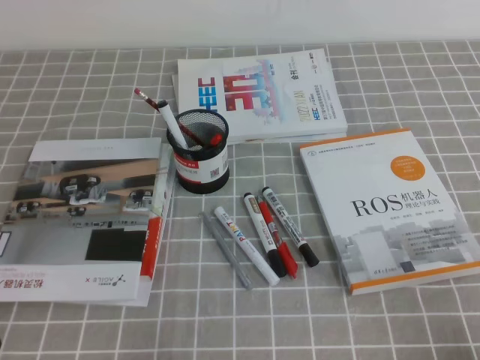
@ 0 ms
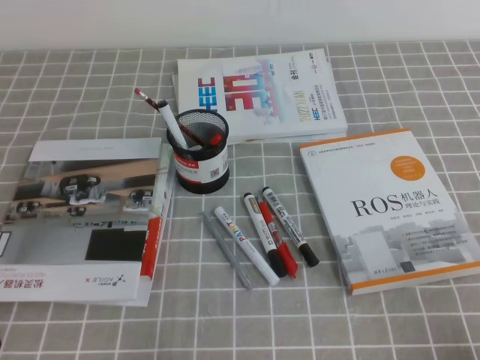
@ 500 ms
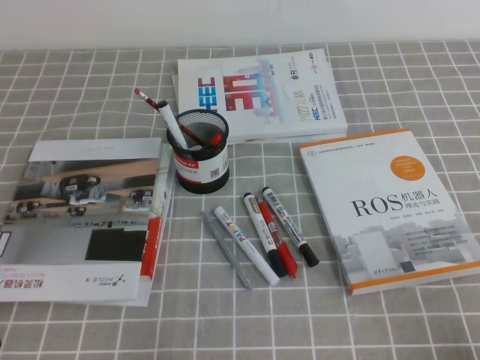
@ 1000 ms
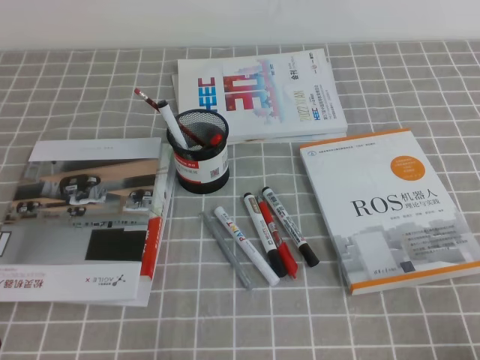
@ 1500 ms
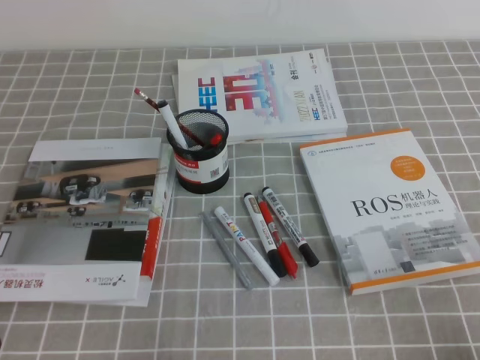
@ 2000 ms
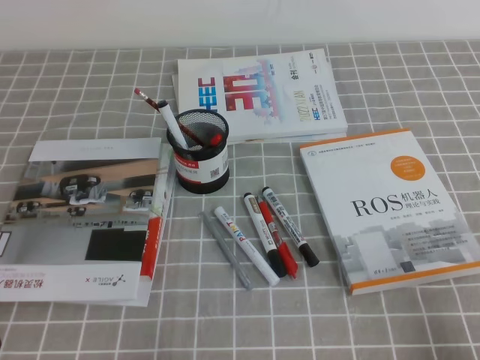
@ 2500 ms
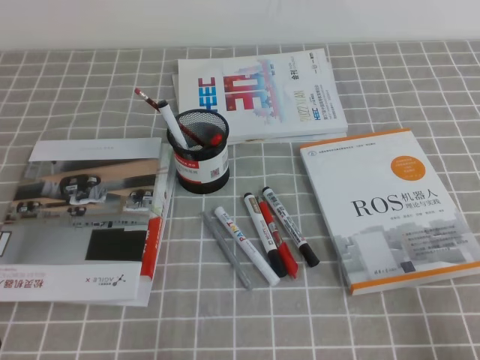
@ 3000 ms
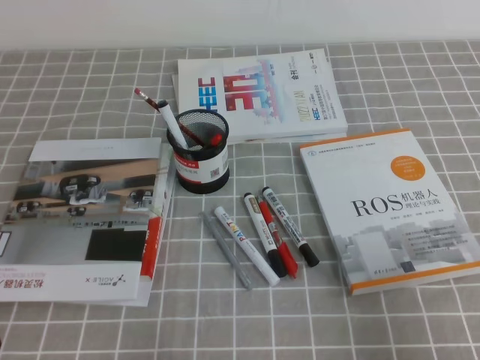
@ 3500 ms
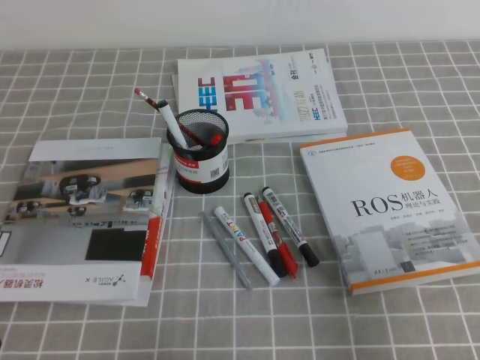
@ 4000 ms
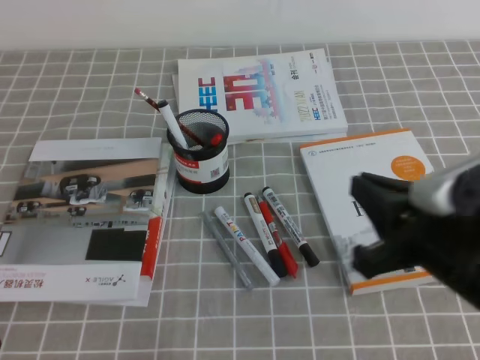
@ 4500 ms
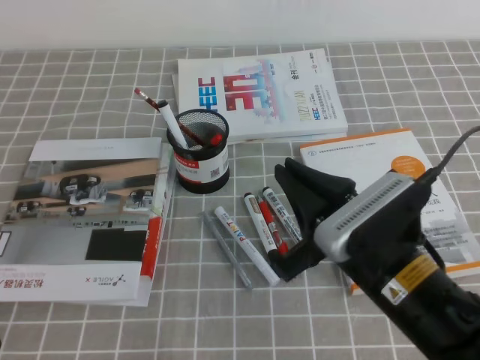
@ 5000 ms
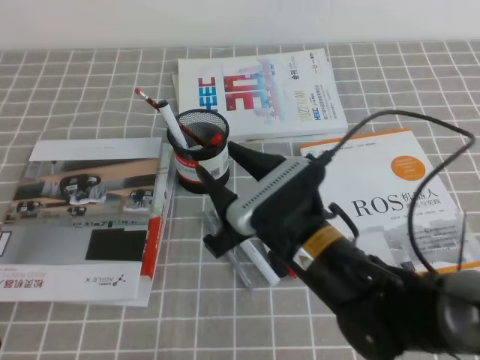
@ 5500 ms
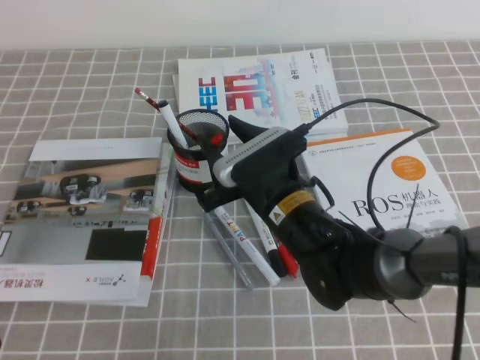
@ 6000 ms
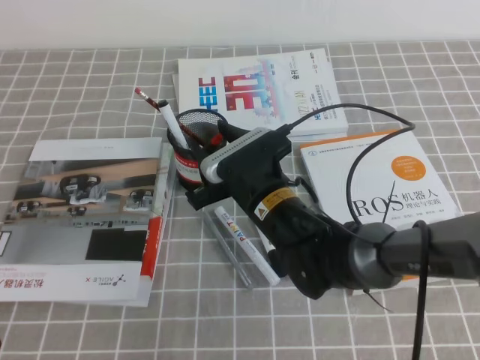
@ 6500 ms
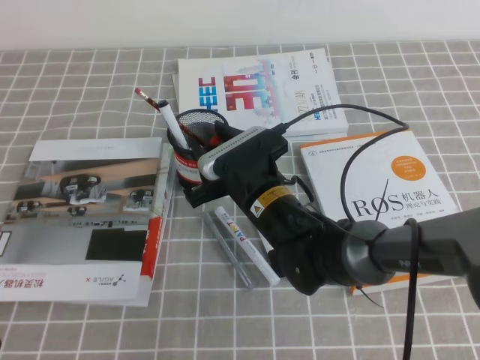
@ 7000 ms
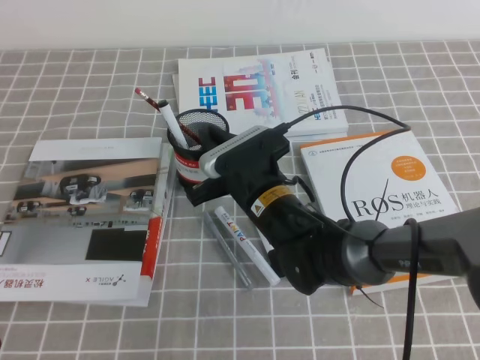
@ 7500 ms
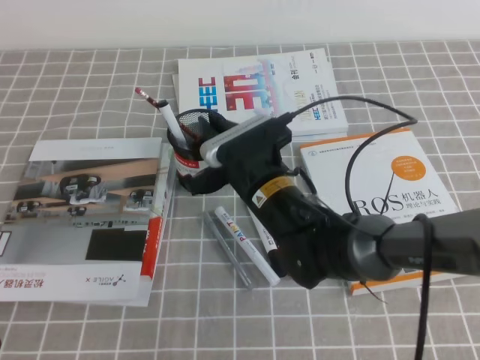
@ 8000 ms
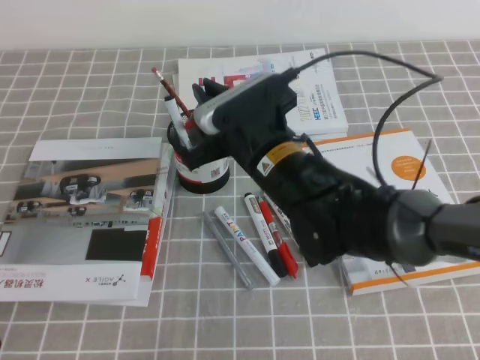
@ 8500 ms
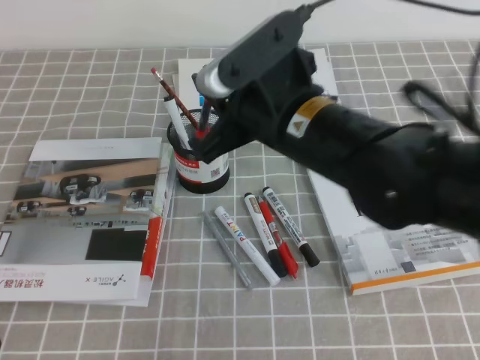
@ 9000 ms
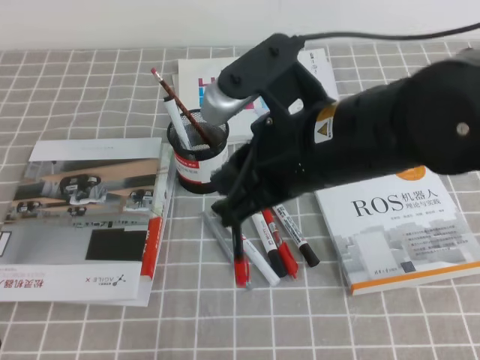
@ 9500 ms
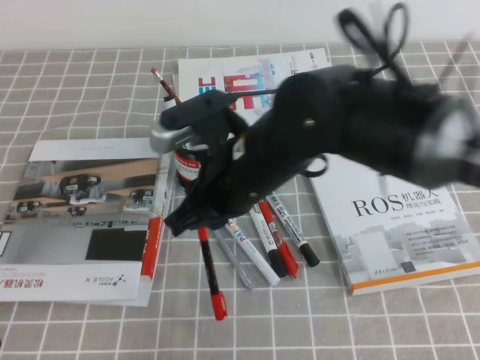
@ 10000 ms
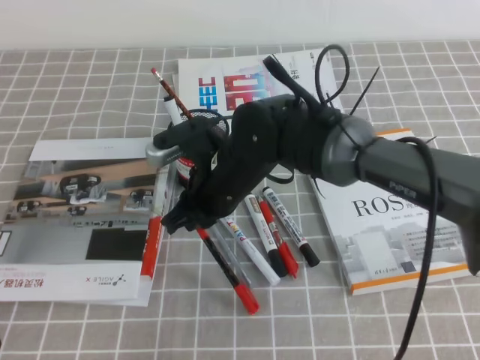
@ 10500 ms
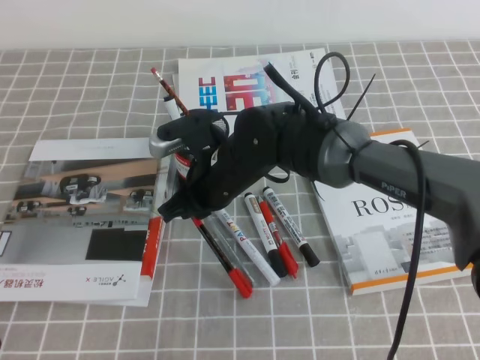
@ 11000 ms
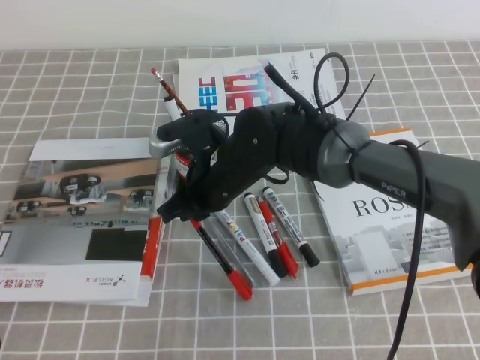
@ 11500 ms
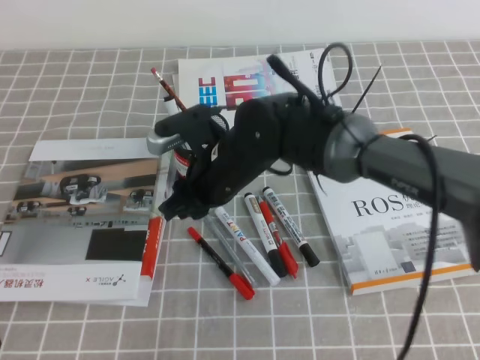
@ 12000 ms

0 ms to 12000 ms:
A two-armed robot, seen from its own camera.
0 ms to 2000 ms: Both grippers stay put.
2000 ms to 4000 ms: The right gripper shifts some 15 cm upward and forward.
4000 ms to 6000 ms: The right gripper shifts approximately 30 cm to the left and forward, and opens.
6000 ms to 8000 ms: The right gripper closes up.
8000 ms to 10000 ms: The right gripper is displaced upward and backward by approximately 10 cm.
10000 ms to 12000 ms: The right gripper is displaced downward and forward by approximately 10 cm, and opens its fingers.

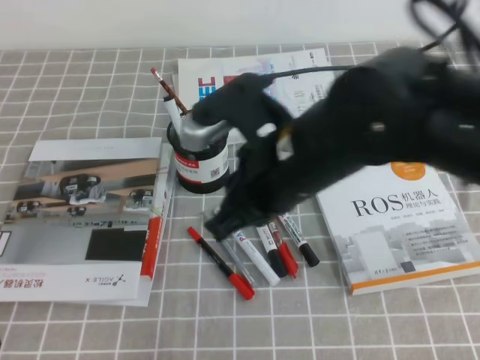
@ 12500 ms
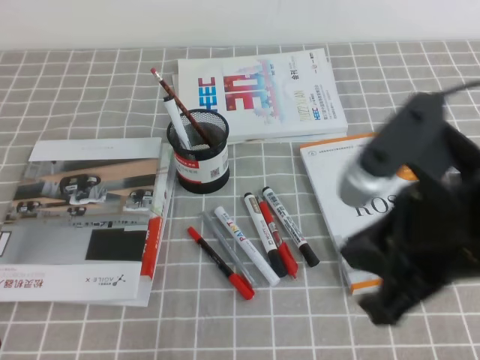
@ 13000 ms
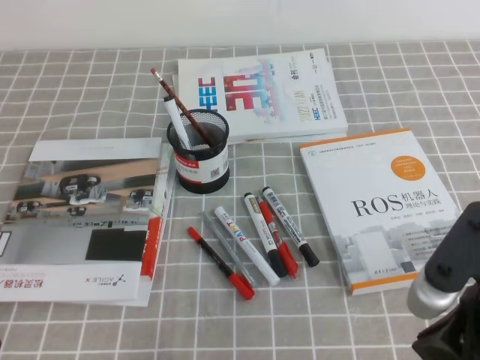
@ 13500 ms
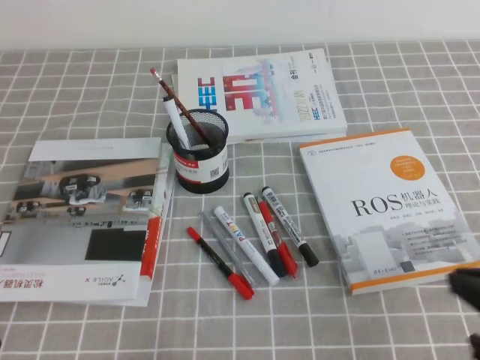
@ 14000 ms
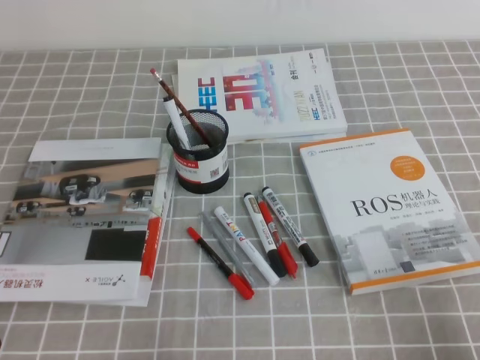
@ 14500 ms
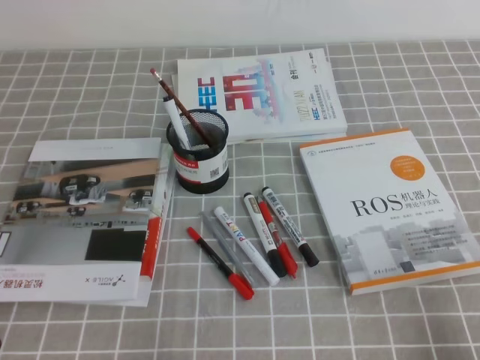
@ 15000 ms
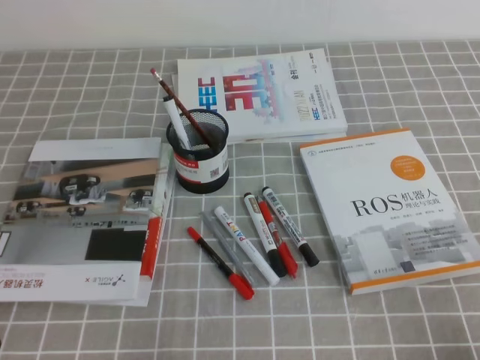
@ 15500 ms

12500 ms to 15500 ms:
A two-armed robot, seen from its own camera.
Step, 12500 ms to 15500 ms: Pick up the pen from the pen holder.
12500 ms to 14000 ms: The right gripper goes roughly 25 cm to the right and backward.
14000 ms to 15500 ms: The right gripper heads downward, to the right and backward, covering some 15 cm.
